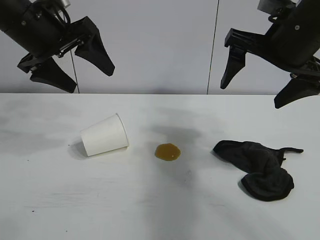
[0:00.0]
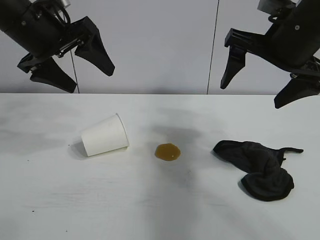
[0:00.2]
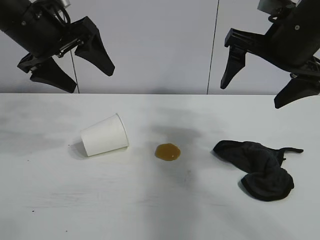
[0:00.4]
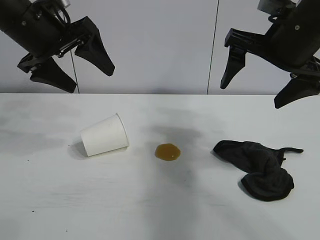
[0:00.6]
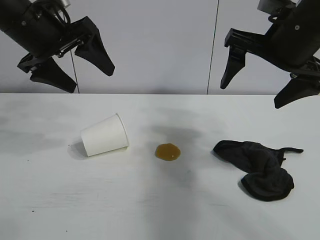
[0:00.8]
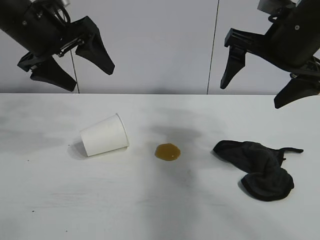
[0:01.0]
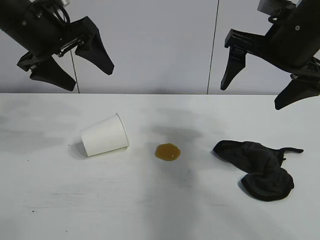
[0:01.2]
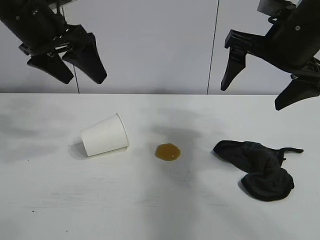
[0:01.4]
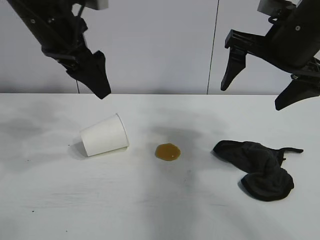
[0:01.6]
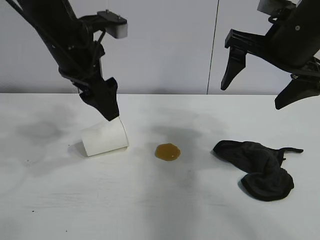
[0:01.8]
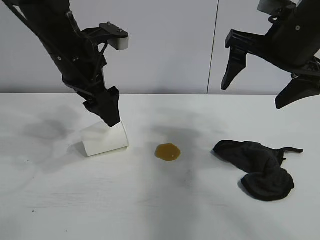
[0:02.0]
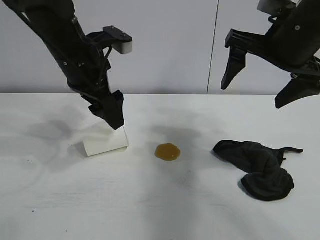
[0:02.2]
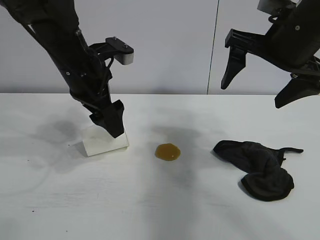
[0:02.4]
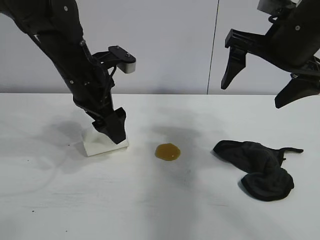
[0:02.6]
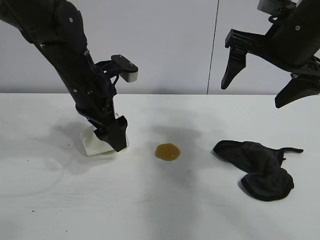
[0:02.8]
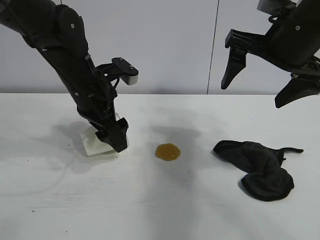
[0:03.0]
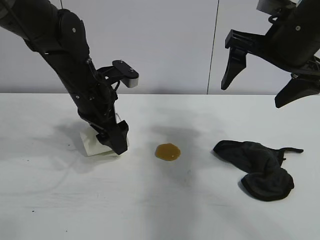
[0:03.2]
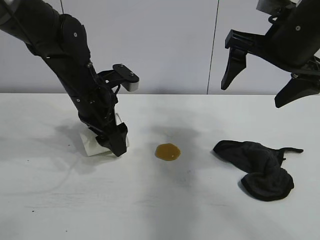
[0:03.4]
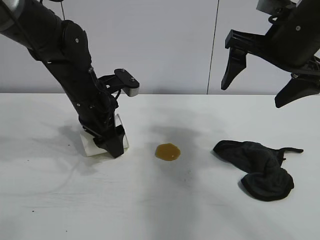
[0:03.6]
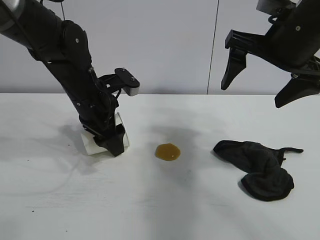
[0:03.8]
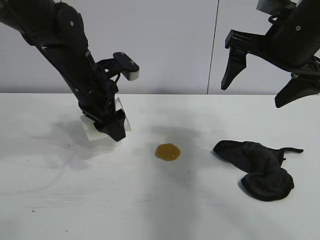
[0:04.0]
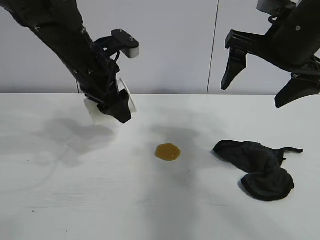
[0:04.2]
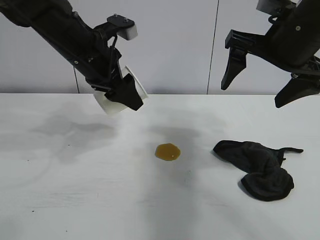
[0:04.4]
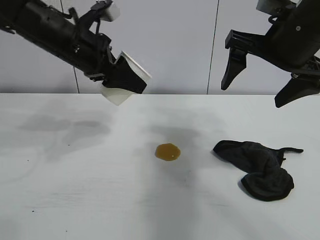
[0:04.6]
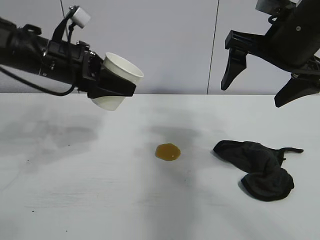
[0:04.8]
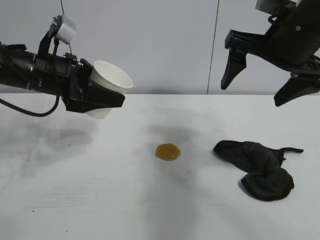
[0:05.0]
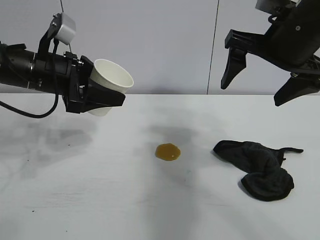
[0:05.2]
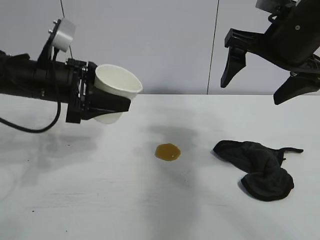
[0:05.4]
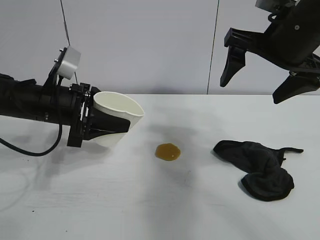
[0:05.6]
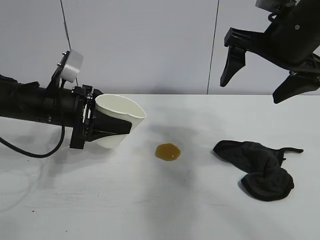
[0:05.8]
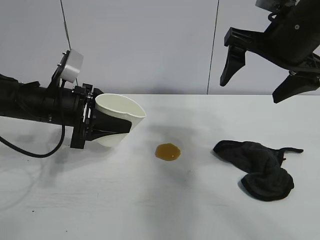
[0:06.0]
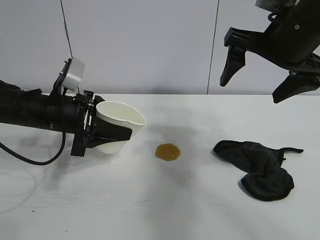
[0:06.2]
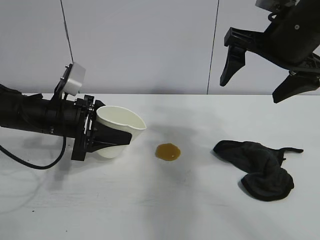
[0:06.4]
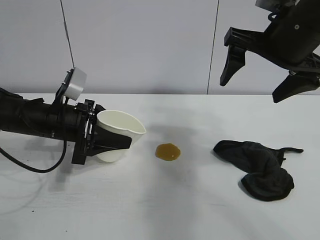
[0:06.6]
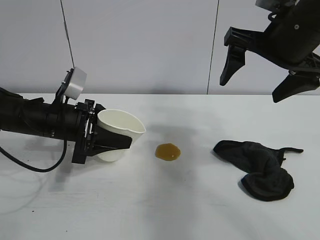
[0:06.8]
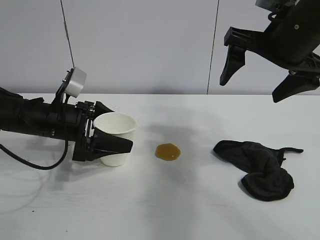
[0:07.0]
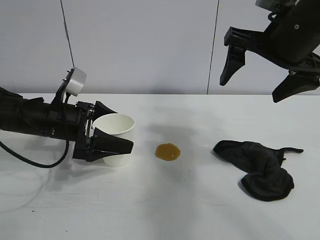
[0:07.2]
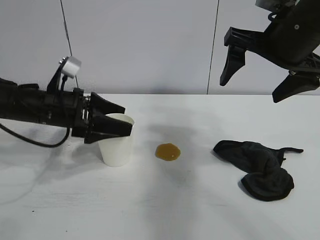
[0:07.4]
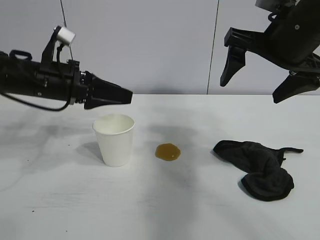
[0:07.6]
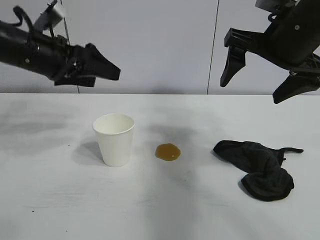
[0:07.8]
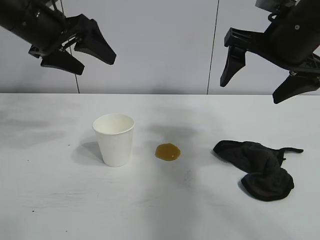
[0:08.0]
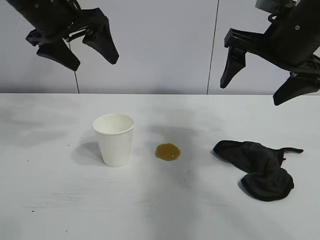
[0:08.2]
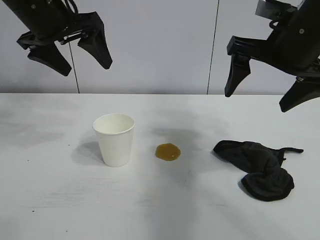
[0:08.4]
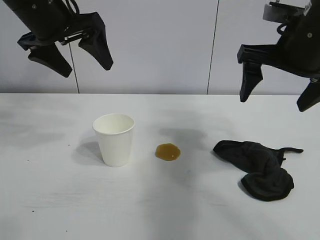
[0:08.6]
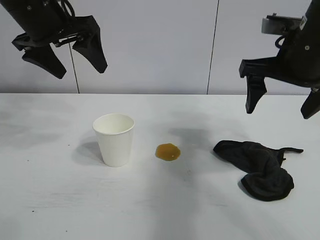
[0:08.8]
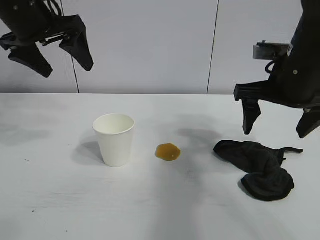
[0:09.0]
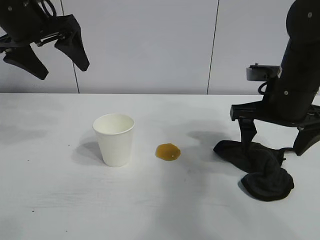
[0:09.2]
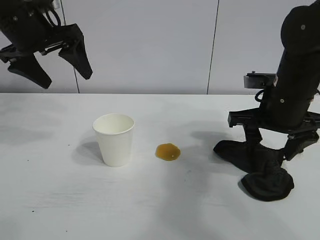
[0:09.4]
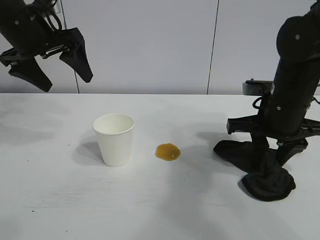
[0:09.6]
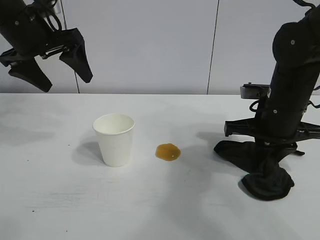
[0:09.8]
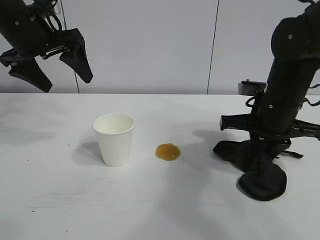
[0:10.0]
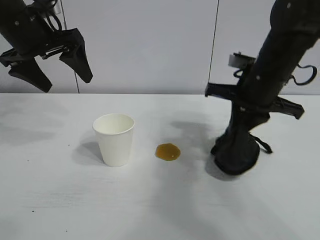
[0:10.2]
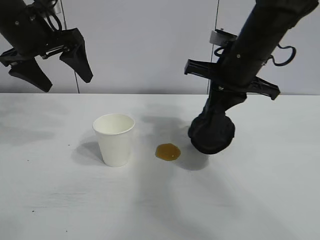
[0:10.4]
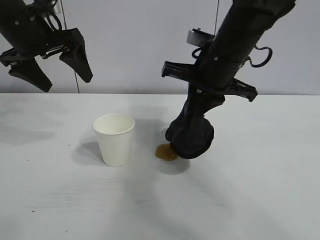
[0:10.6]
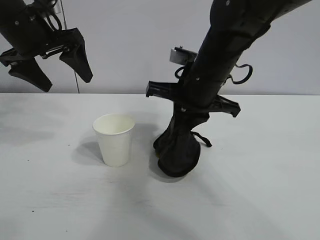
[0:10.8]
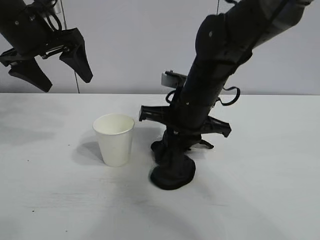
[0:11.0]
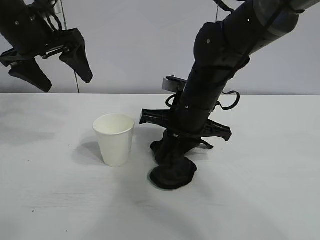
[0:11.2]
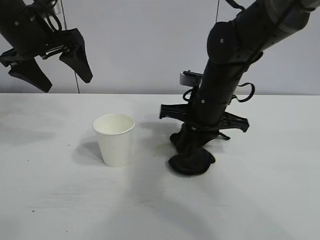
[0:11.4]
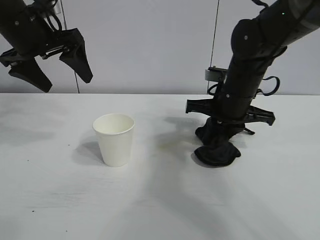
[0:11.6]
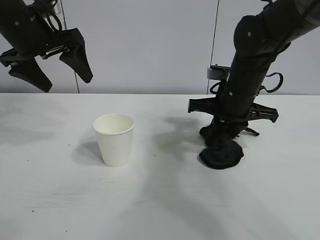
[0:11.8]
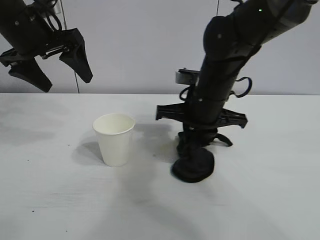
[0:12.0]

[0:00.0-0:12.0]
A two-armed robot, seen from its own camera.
Task of the whole recording: the left gripper pick up the fallen cup and place it upright, the right gripper grasp the black rag and wipe the stain on the table, the right gripper put the black rag back in its original position.
Step, 0:01.4 to 0:03.4: Grasp the paper cup with left gripper.
Step, 0:03.8 to 0:07.2: Stand the paper cup upright with left gripper.
Step, 0:07.4 to 0:09.6: Grasp the rag with right gripper.

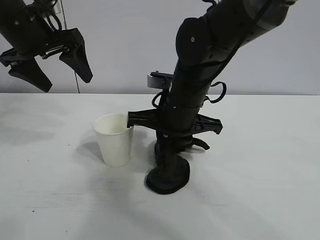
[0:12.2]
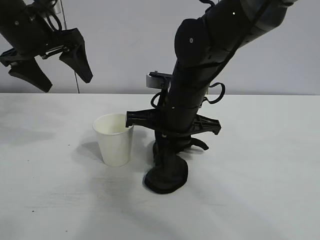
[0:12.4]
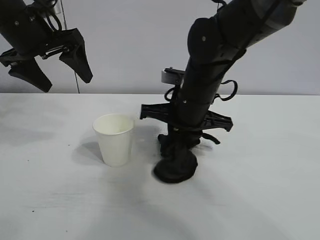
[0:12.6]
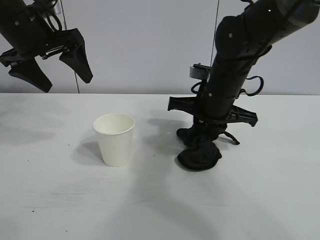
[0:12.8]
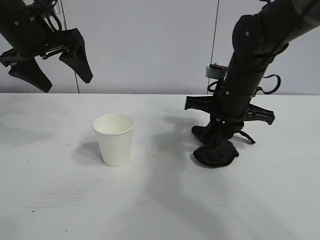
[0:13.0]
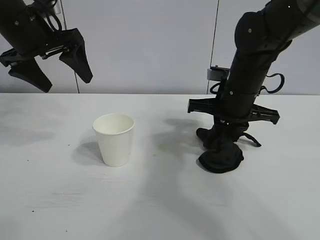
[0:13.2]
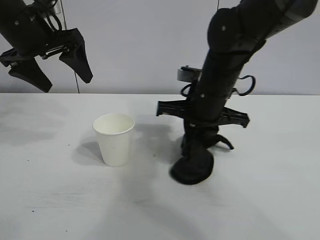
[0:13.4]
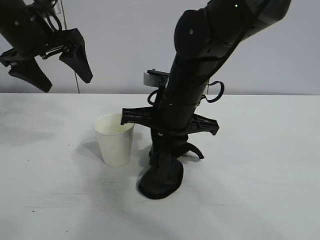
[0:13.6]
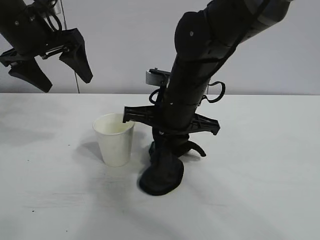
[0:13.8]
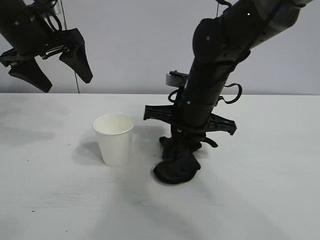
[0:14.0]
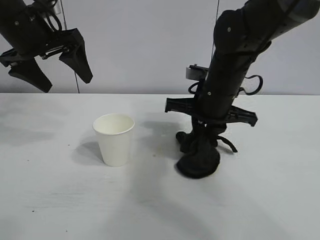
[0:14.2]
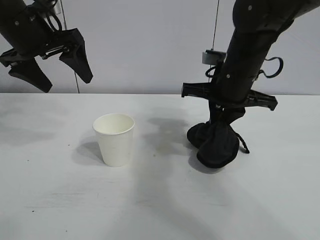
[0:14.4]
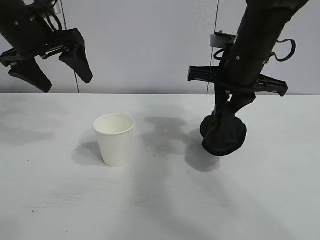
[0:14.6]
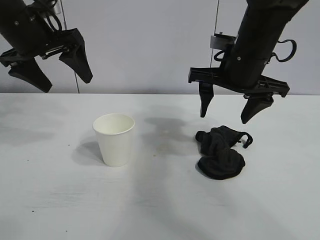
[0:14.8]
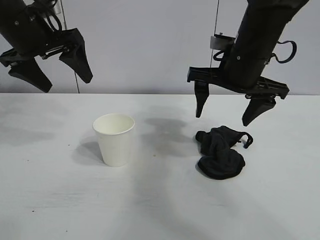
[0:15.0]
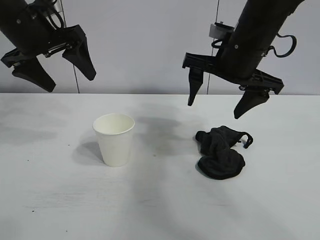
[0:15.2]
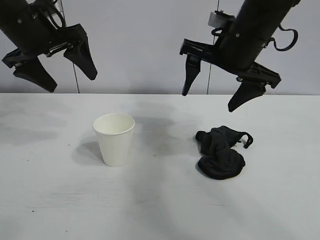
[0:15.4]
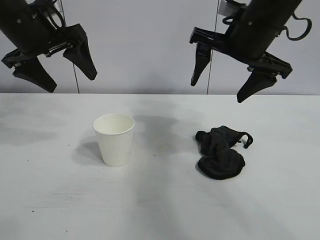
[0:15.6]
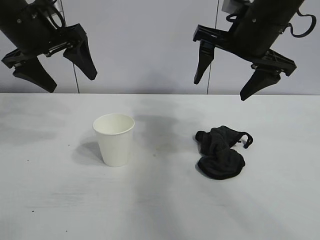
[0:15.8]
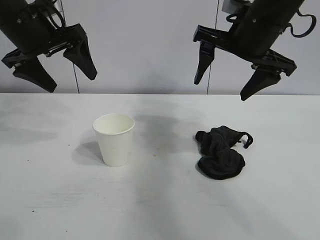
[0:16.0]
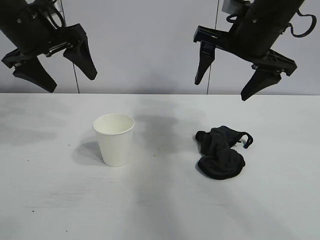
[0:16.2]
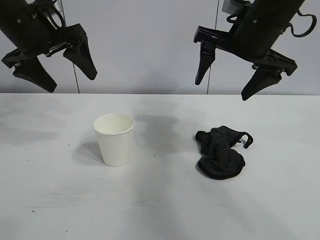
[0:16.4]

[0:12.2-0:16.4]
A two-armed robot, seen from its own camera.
Task of the whole recording: the left gripper pick up the fallen cup and place it upright, the right gripper grasp the black rag and wipe the stain on the table, the right gripper put the black rag back in its original position.
Step, 0:12.2 to 0:14.2: Wipe the stains off the table with the rag with right gripper.
Step, 0:14.4 to 0:14.6: Place the rag on the table with right gripper.
